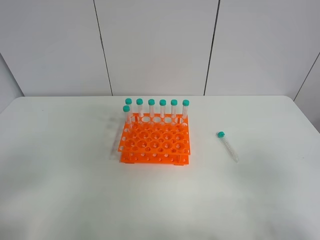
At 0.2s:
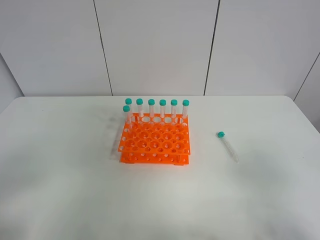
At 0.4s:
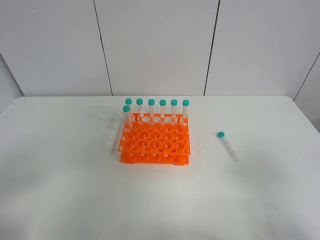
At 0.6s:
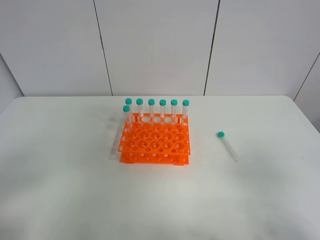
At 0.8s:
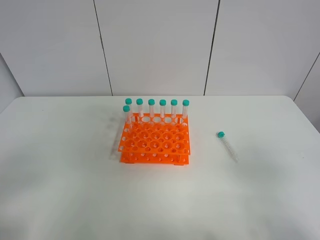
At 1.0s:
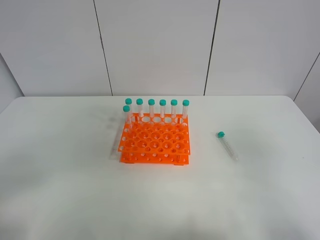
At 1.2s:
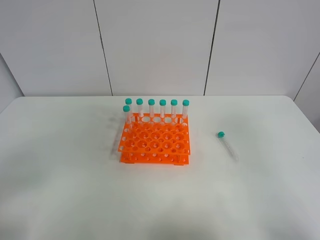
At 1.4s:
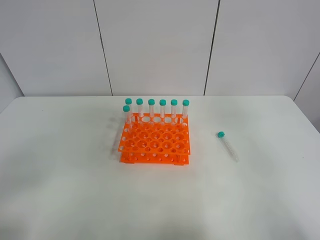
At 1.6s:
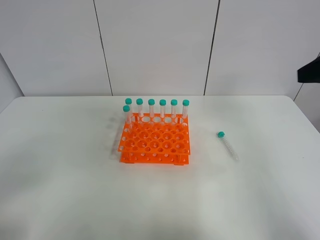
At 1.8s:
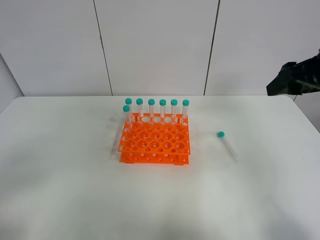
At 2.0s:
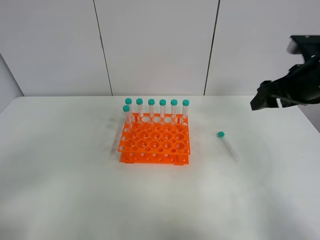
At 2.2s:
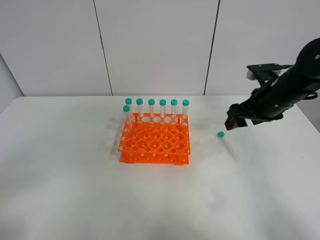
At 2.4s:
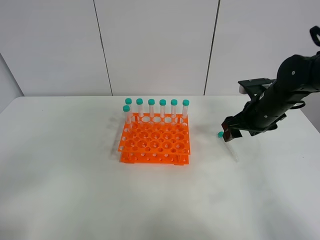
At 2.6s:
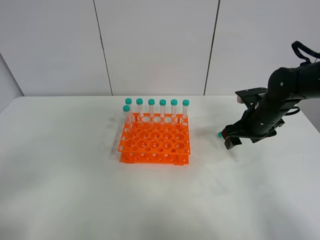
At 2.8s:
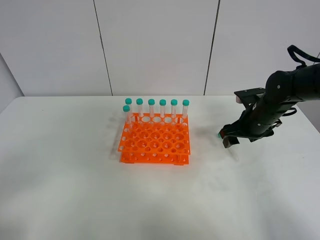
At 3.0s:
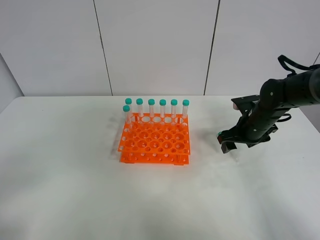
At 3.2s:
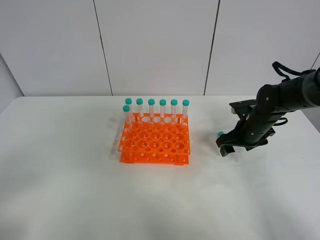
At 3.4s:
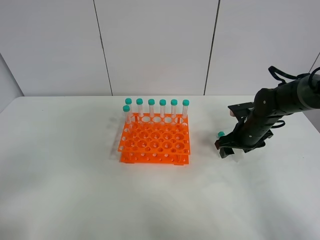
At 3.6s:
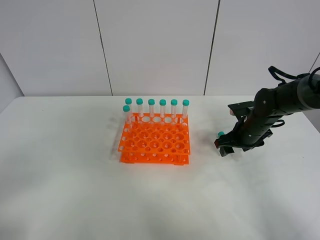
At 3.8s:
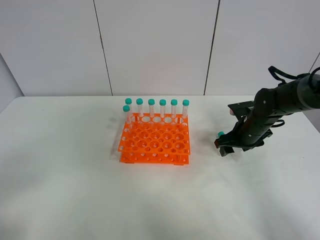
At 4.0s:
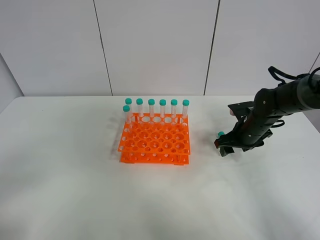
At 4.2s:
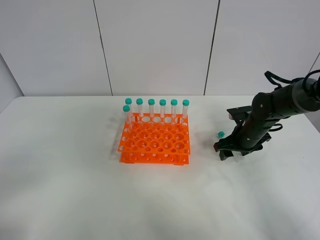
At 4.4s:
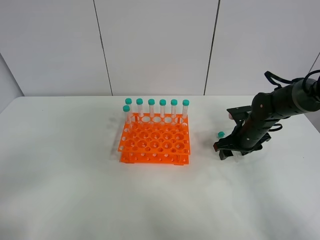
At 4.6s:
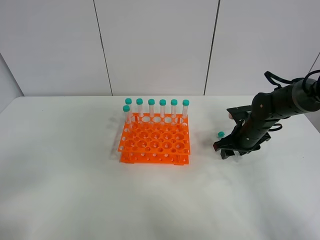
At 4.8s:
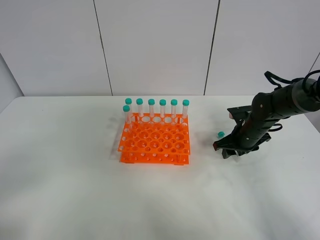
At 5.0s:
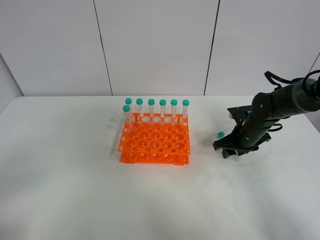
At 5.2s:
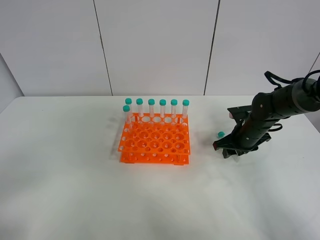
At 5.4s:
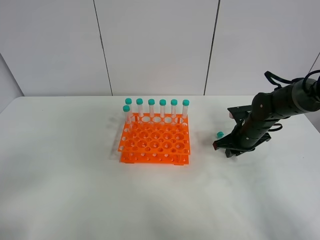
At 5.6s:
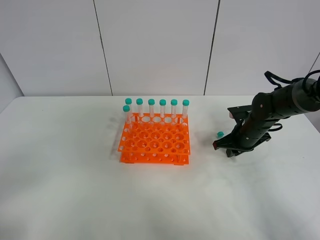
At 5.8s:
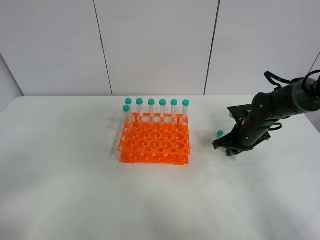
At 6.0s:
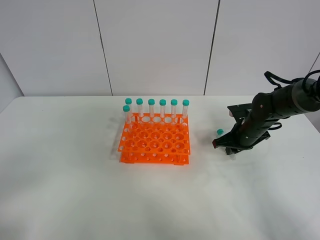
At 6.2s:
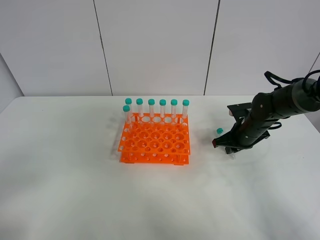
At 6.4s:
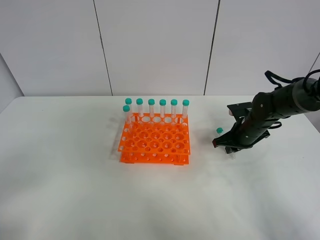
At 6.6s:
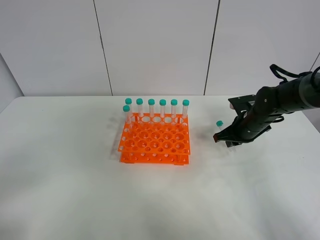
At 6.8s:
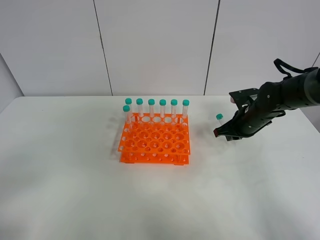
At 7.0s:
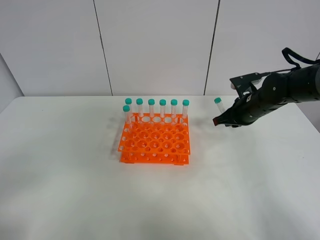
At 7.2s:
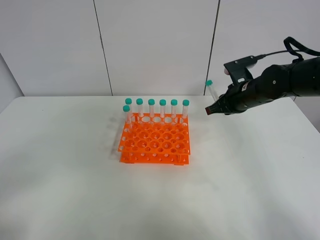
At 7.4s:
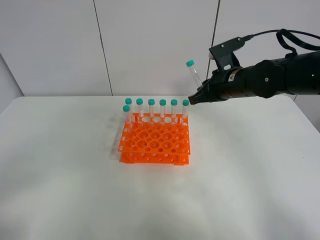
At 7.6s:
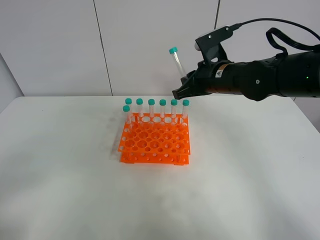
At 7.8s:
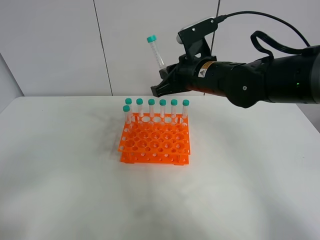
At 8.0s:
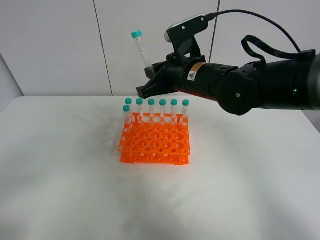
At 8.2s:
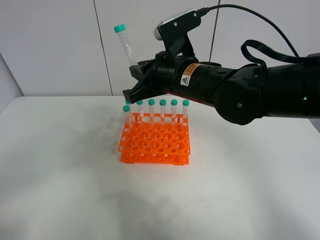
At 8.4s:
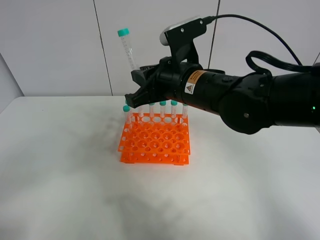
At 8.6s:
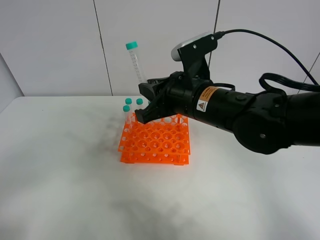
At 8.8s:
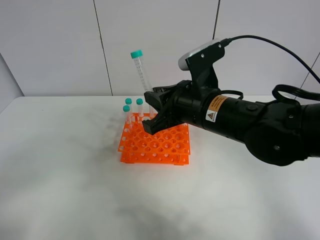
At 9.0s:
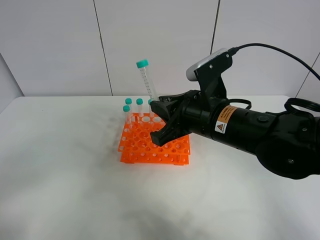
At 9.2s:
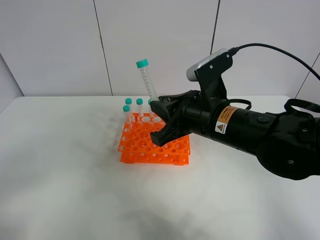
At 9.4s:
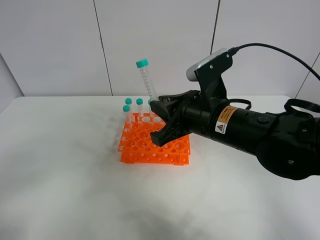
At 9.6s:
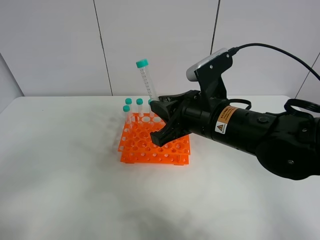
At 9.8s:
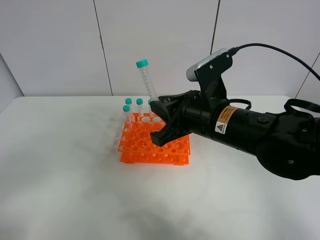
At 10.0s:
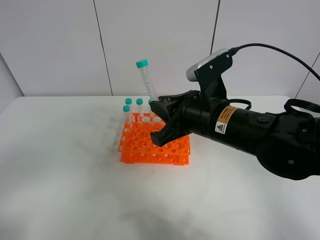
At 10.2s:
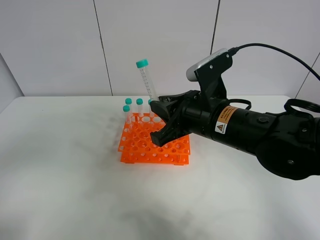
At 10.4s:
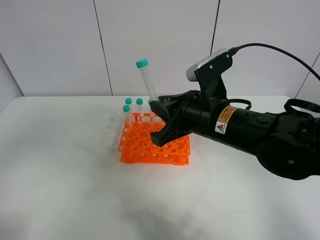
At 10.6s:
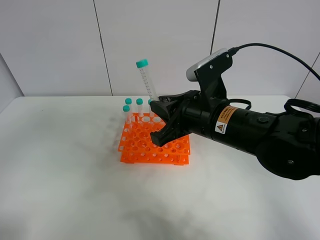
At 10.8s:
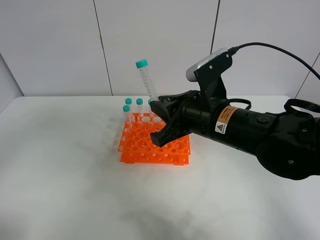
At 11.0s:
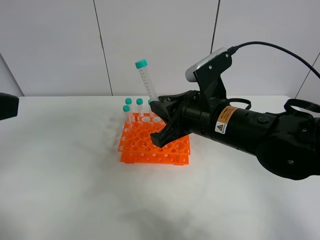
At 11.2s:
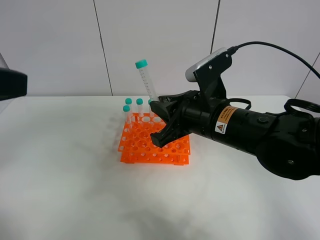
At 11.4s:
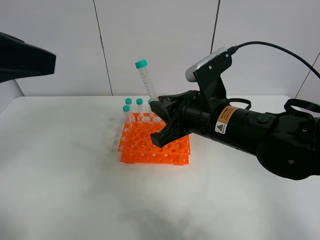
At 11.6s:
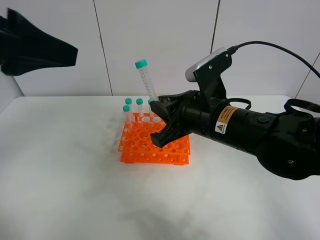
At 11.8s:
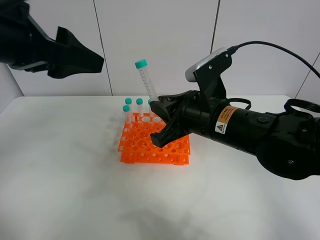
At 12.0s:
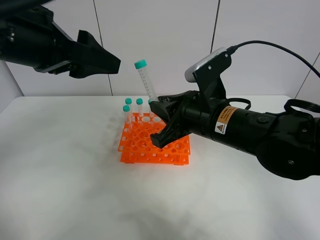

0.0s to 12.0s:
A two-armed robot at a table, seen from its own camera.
Task of the whole recording: Put the test tube on the table back onto the test tube rack.
Step, 0.0s to 5.6s: Pick up the test tube with the right gripper.
0.0s to 1.6s: The right gripper is displaced forward and upward by approximately 20 cm.
1.6s to 3.0s: The right gripper travels downward and forward by about 30 cm.
3.0s to 4.4s: The grippers move only a little.
4.4s to 6.0s: The right gripper closes its fingers.
6.0s to 7.6s: The right gripper is displaced upward and to the left by roughly 20 cm.
7.6s to 9.0s: The right gripper travels backward by roughly 10 cm.
10.4s to 12.0s: The left gripper travels forward and to the right by roughly 20 cm.

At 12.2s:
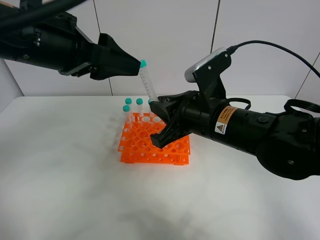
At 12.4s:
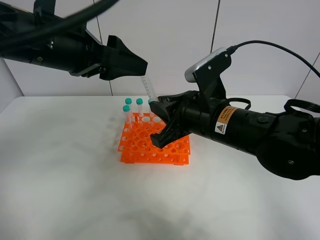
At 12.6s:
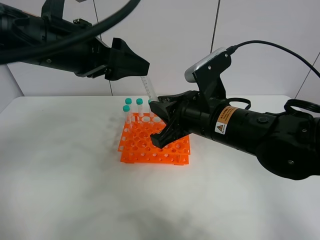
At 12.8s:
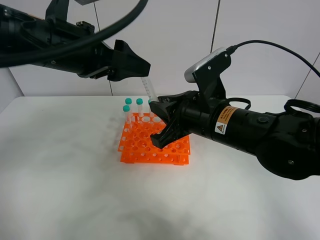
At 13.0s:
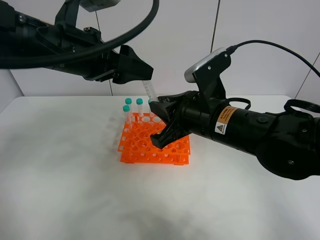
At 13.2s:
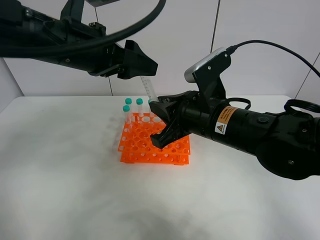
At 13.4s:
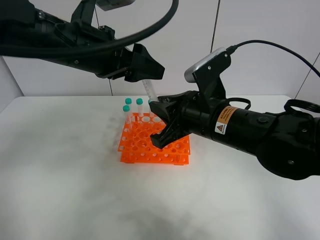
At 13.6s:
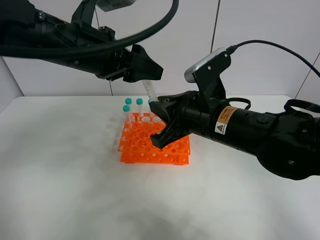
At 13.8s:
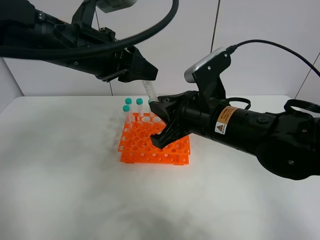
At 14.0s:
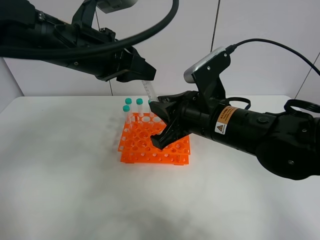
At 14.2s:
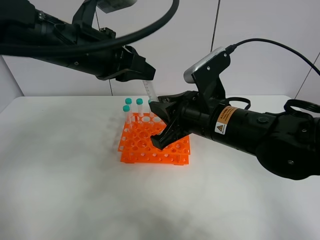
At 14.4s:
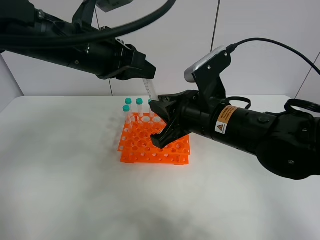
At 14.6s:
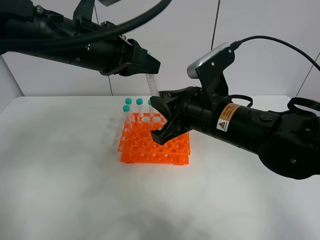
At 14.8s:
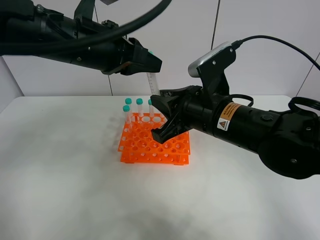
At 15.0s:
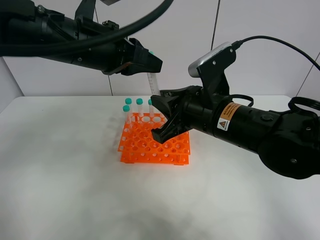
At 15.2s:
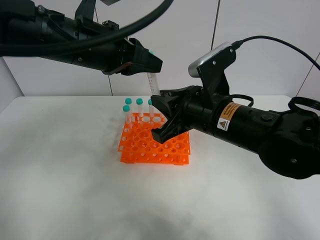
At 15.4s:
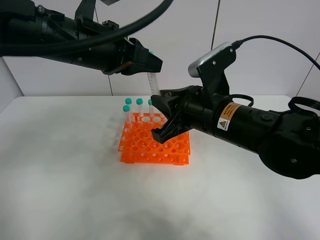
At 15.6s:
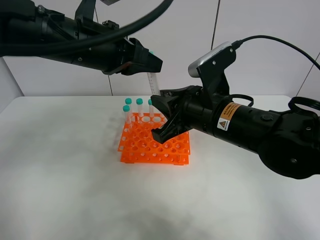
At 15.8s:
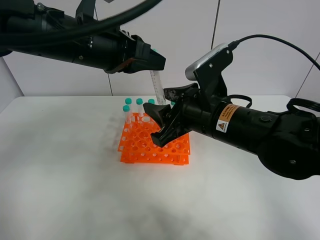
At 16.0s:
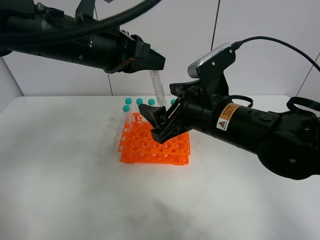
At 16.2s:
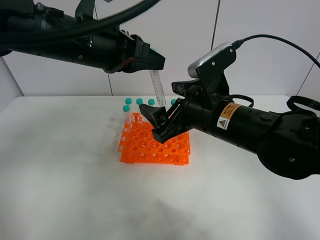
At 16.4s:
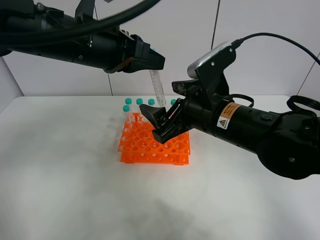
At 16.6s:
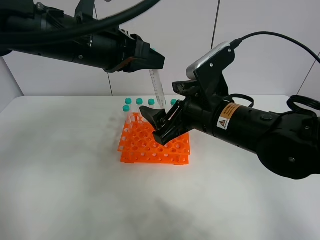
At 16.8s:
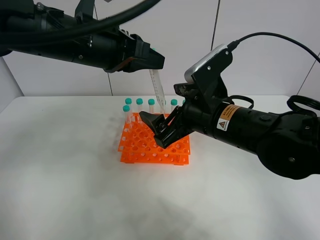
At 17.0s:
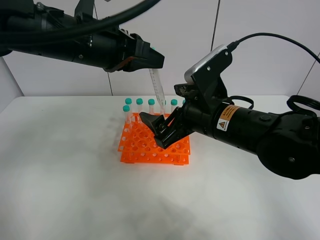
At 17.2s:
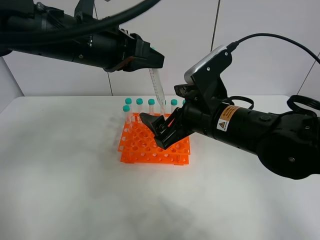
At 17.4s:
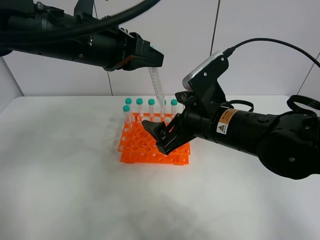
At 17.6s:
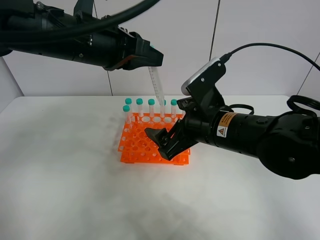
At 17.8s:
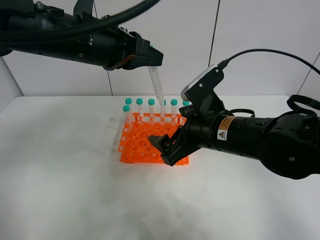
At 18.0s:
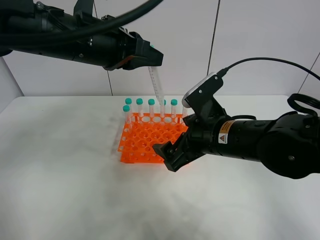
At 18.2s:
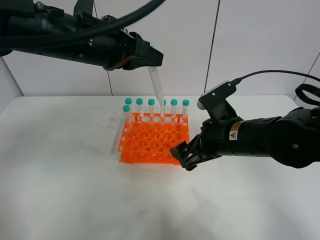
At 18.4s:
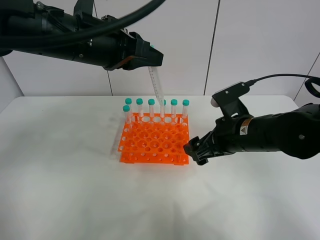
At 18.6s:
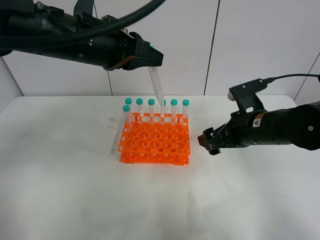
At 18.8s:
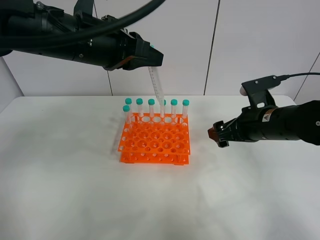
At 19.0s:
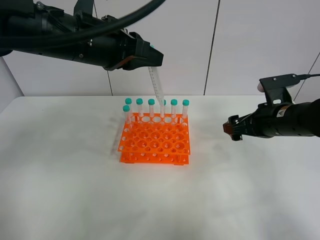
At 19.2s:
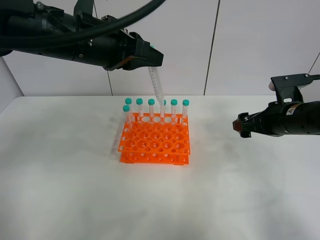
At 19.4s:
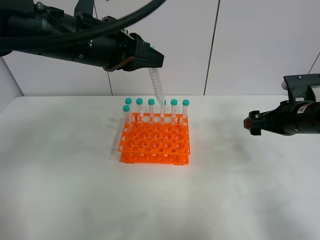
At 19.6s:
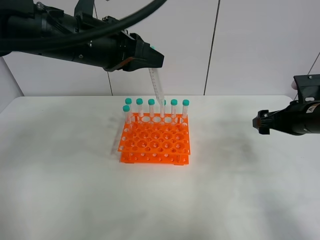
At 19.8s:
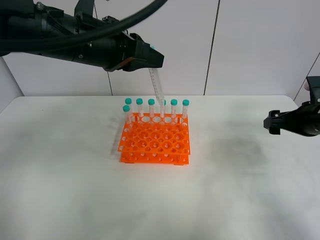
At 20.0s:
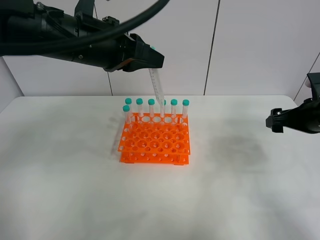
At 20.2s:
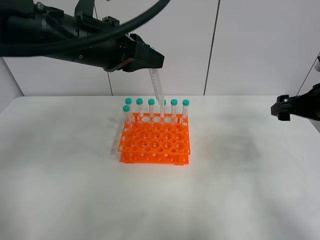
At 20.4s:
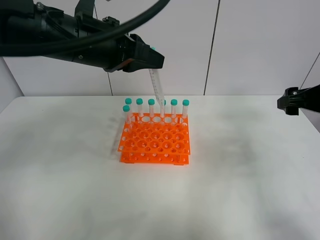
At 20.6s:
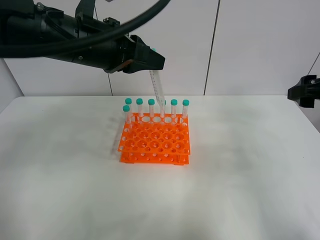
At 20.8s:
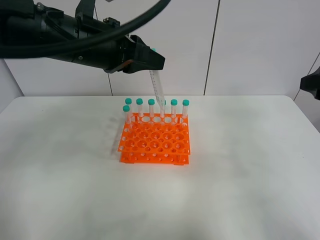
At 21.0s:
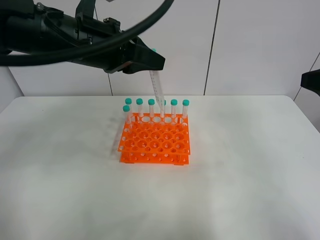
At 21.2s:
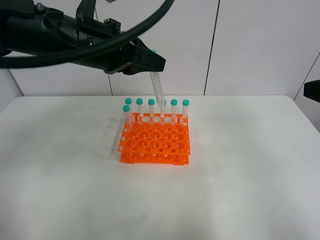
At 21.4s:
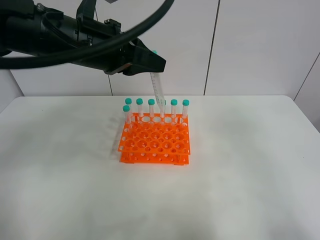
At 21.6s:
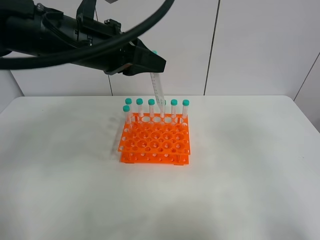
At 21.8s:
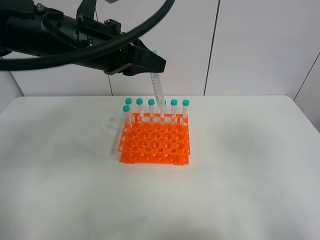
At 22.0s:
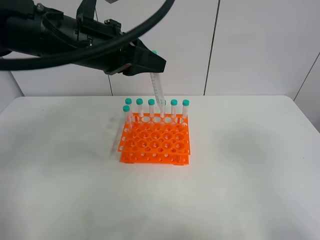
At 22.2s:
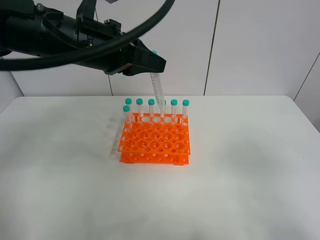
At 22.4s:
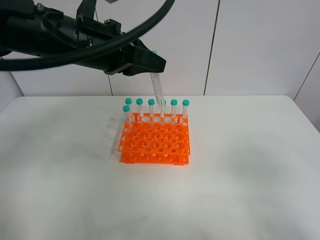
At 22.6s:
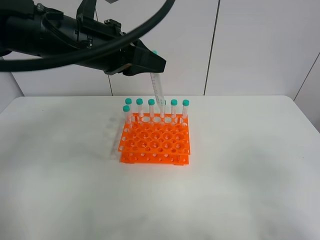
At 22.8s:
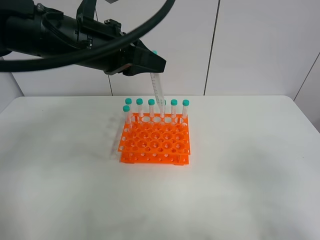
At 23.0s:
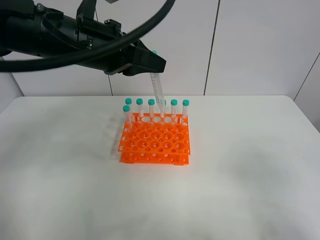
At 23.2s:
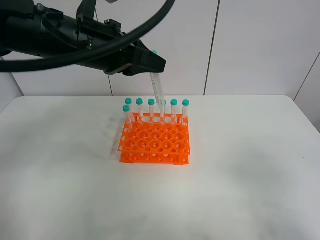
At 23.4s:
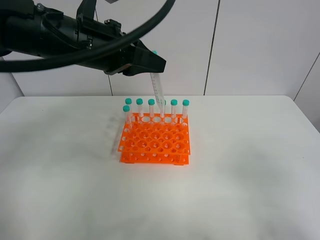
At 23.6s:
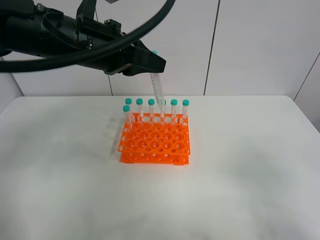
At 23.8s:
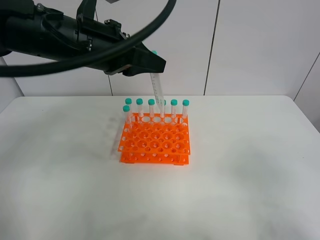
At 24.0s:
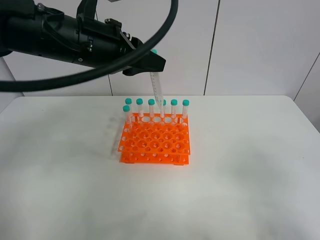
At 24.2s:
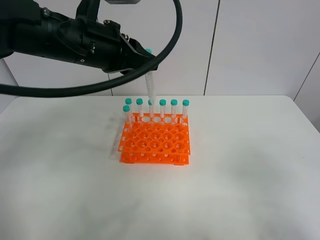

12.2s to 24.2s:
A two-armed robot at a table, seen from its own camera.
Task of the whole recording: Put the test tube on the table back onto the test tube rack.
Step, 12.2s to 16.0s: Move the test tube from the right gripper to the left gripper.
12.2s to 13.8s: The left gripper changes place by approximately 5 cm, and closes its fingers.
13.8s to 15.2s: There are only small adjustments of the grippers.
15.2s to 16.6s: The right gripper opens.
16.6s to 18.2s: The right gripper moves some 5 cm.
18.2s to 19.8s: The right gripper goes approximately 20 cm to the right.
19.8s to 21.2s: The right gripper is displaced upward and backward by some 20 cm.
21.2s to 22.6s: The right gripper moves backward and downward, approximately 15 cm.
22.6s to 24.2s: The grippers move only a little.
